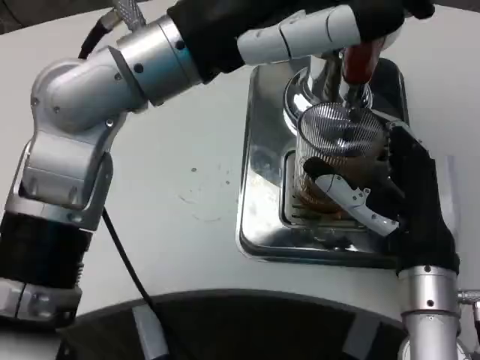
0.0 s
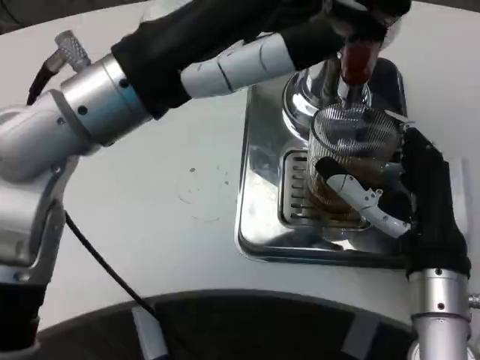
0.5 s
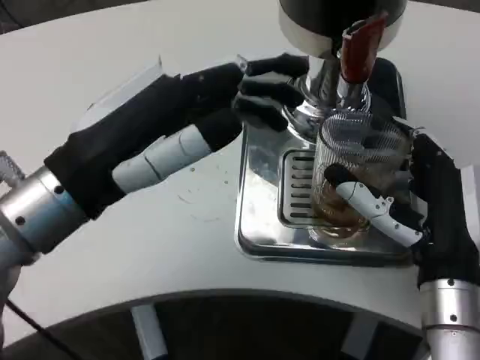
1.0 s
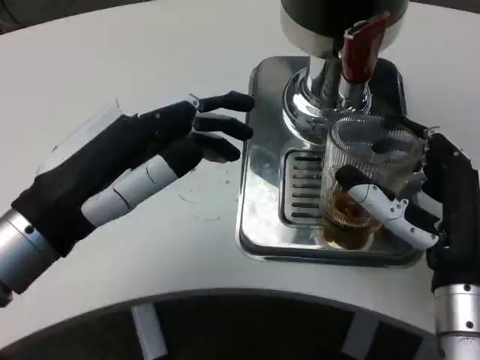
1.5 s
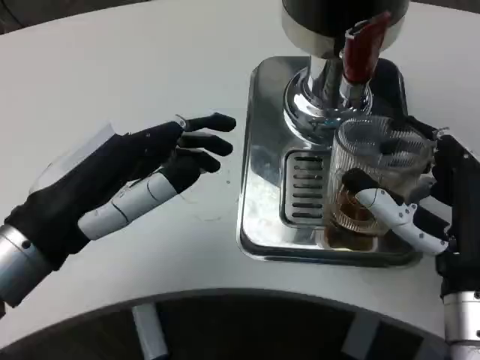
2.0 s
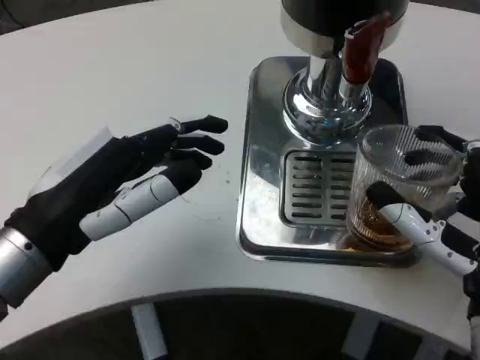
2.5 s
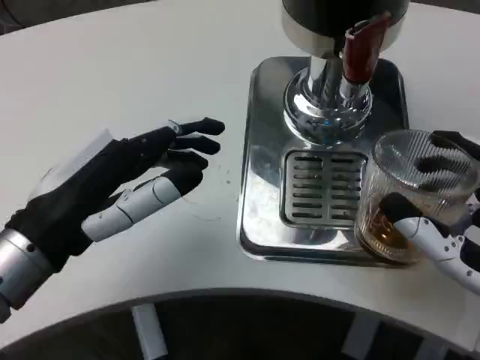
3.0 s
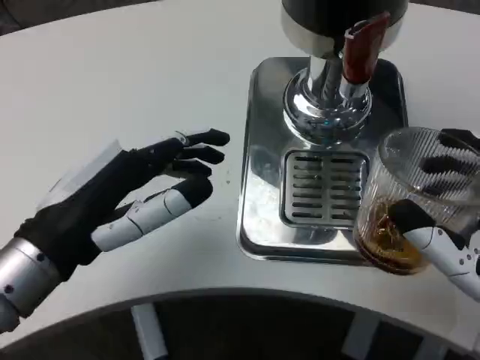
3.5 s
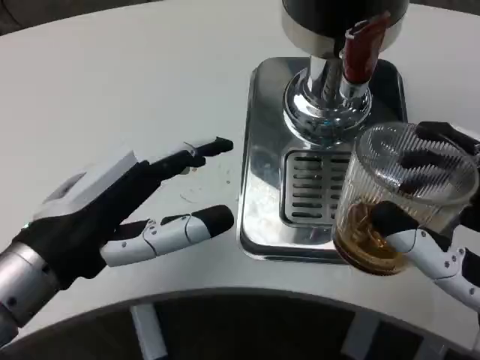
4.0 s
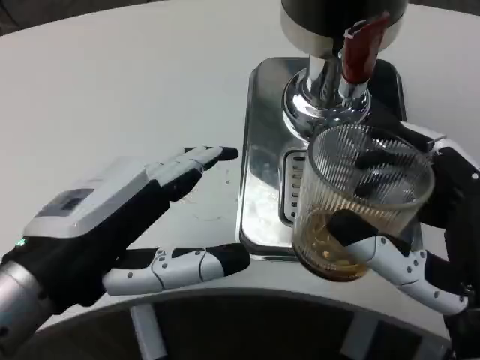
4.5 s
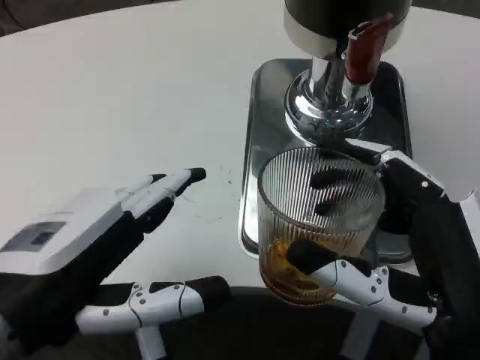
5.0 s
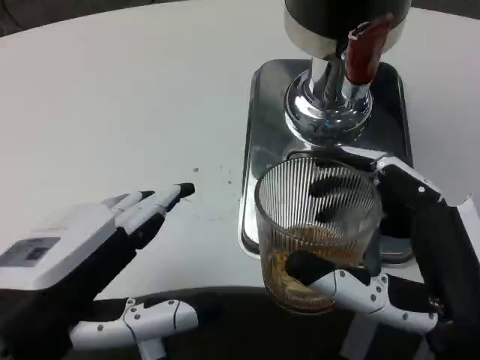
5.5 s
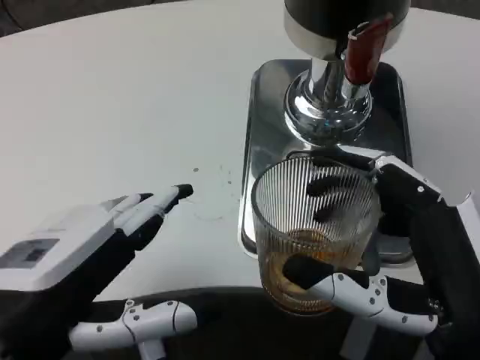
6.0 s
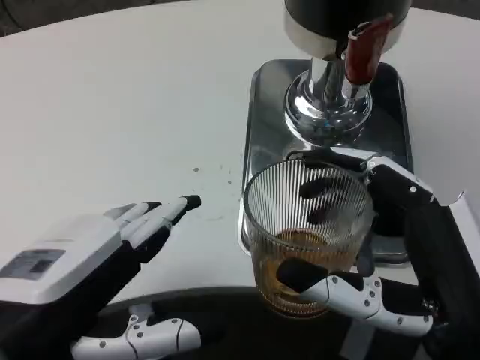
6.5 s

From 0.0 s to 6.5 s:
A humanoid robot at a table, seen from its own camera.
Task of the whole recording: Grasp the cup under the faucet to collect the drink, then remove the cup.
From 0.0 s to 2.0 s: The left hand is displaced downward, to the left and backward by about 20 cm.
From 2.0 s to 4.5 s: The right hand travels backward by some 5 cm, while the left hand shifts by some 5 cm.

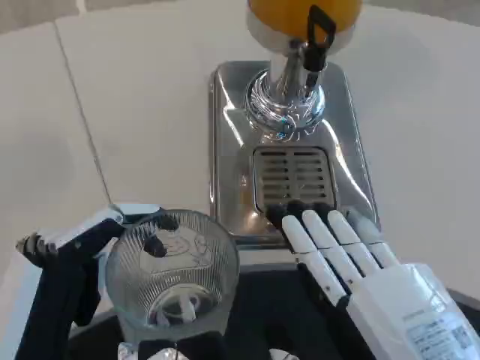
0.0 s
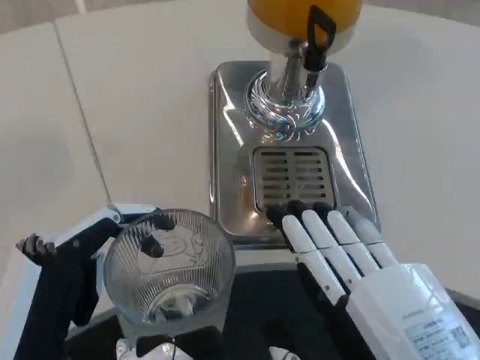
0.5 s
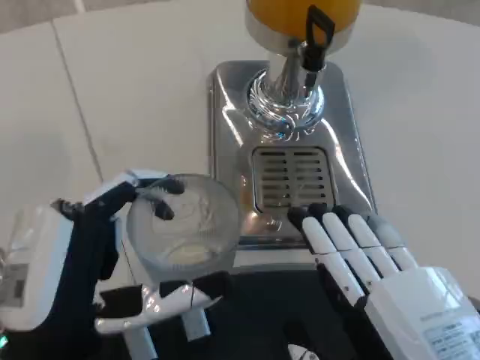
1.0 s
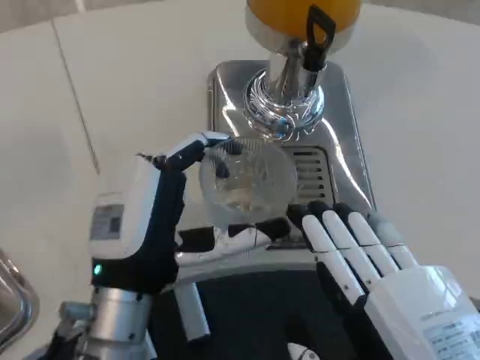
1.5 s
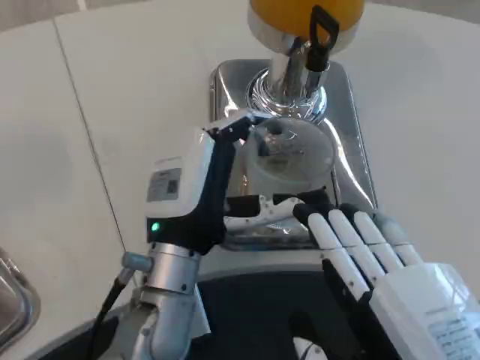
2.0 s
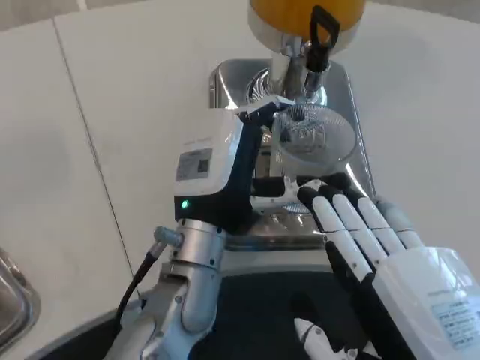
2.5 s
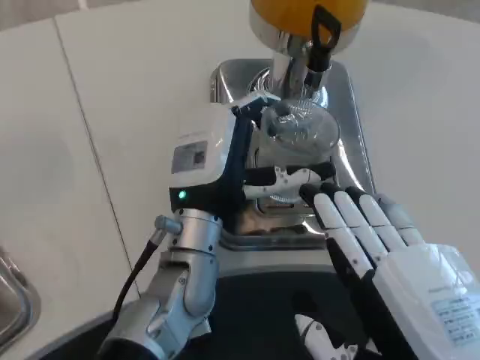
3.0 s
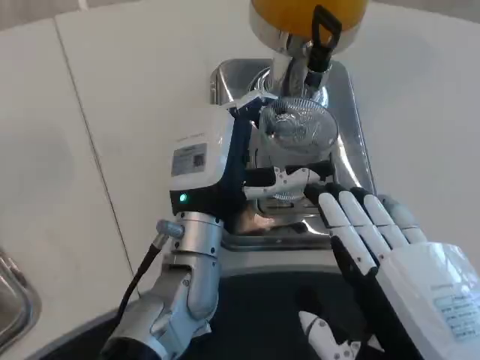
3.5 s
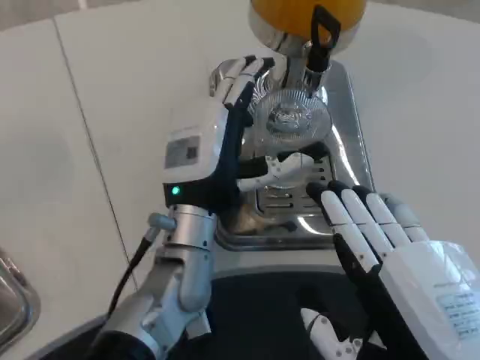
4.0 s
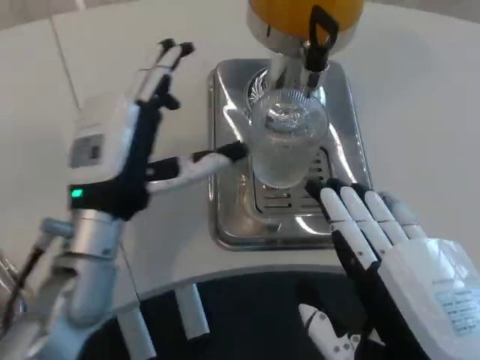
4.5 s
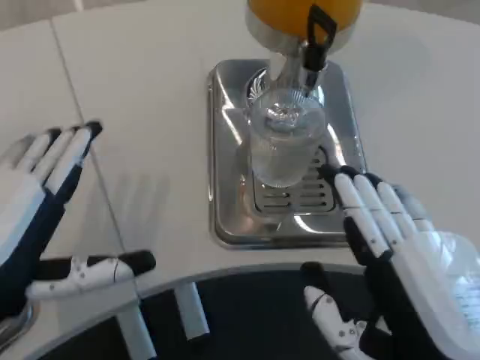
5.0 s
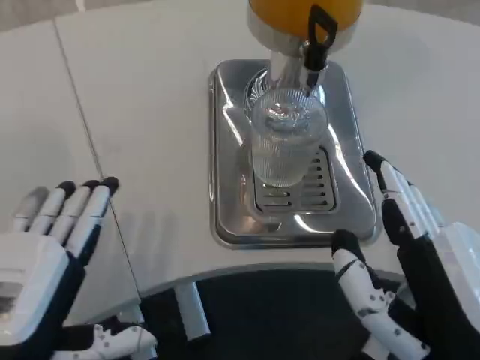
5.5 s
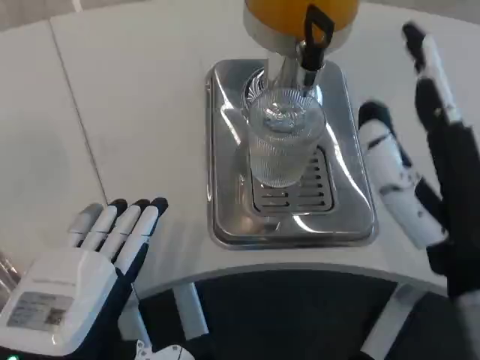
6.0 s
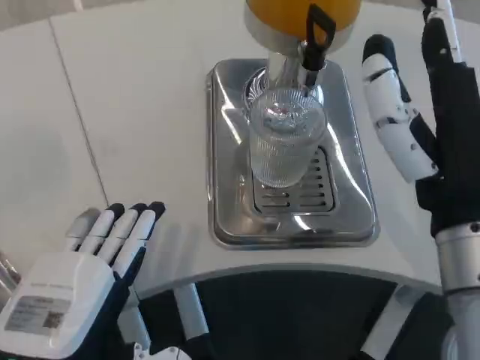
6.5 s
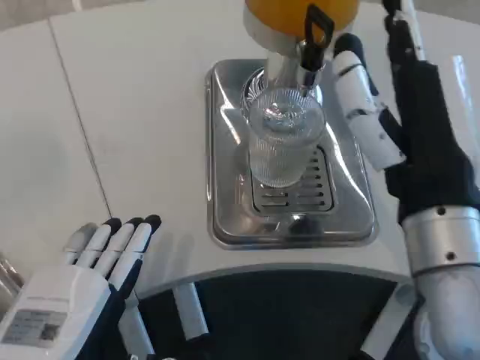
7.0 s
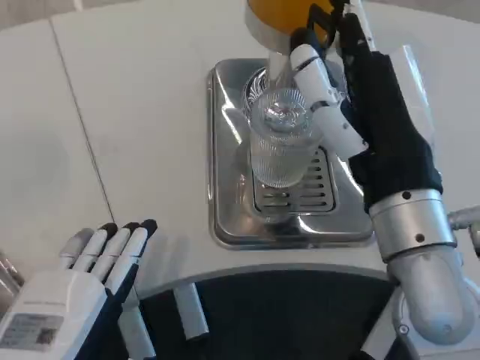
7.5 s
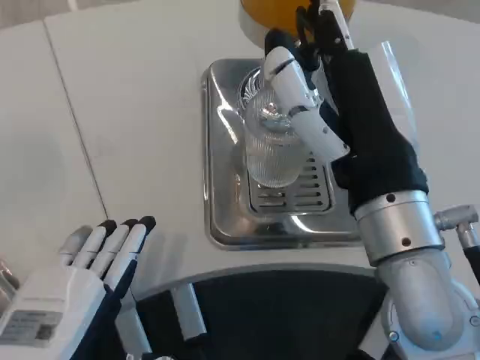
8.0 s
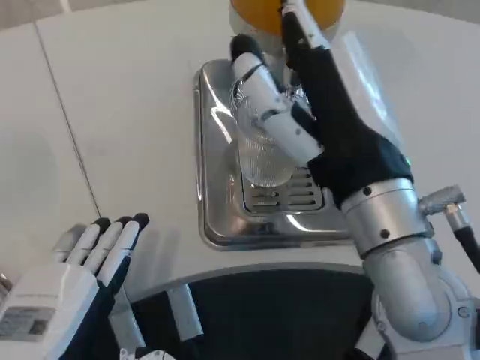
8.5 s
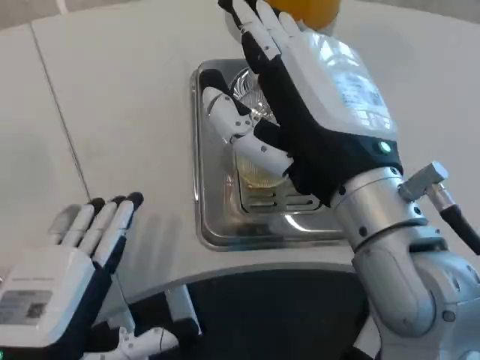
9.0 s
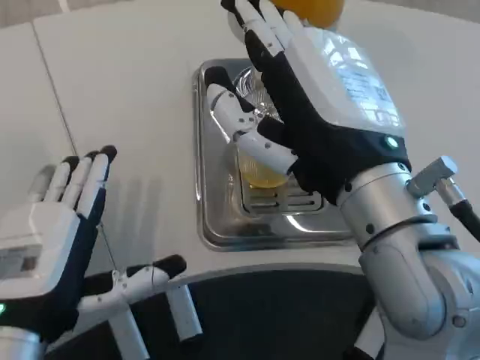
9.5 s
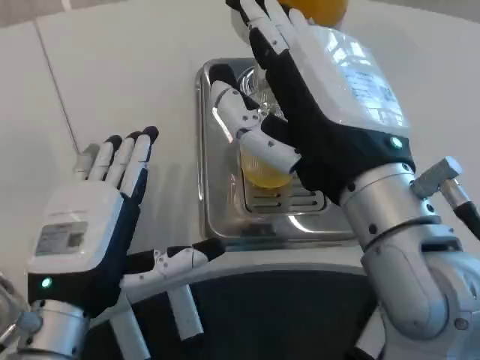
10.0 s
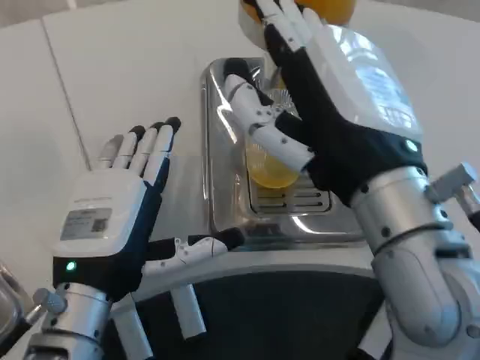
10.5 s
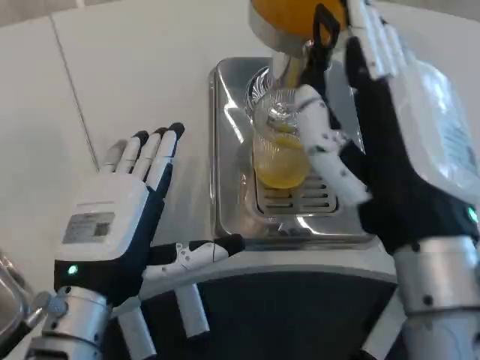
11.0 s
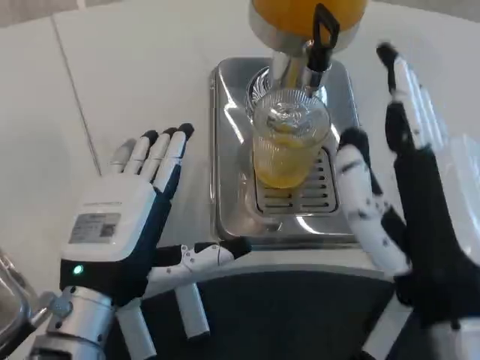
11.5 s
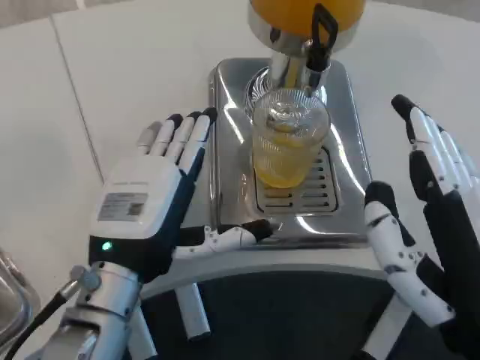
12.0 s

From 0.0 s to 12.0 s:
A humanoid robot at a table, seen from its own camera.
Task of the whole recording: Grasp the cup under the faucet to collect the drink, then remove the cup.
From 0.0 s to 2.0 s: The left hand moves forward and to the right, approximately 20 cm.
From 2.0 s to 4.0 s: The left hand shifts by roughly 5 cm.
From 4.0 s to 6.0 s: The right hand moves forward, some 5 cm, while the left hand is displaced backward and to the left by roughly 20 cm.
From 6.0 s to 8.0 s: The right hand travels forward by approximately 5 cm.
From 8.0 s to 10.0 s: The left hand moves forward, approximately 10 cm.
From 10.0 s to 12.0 s: The right hand shifts roughly 15 cm downward, backward and to the right; the left hand changes place by about 5 cm.

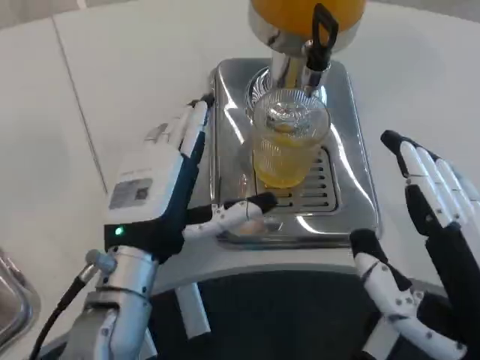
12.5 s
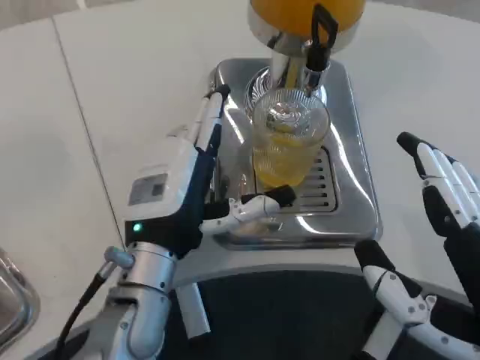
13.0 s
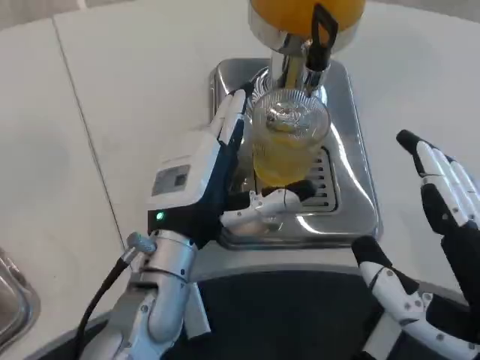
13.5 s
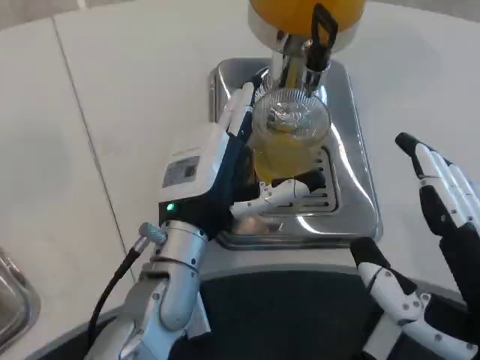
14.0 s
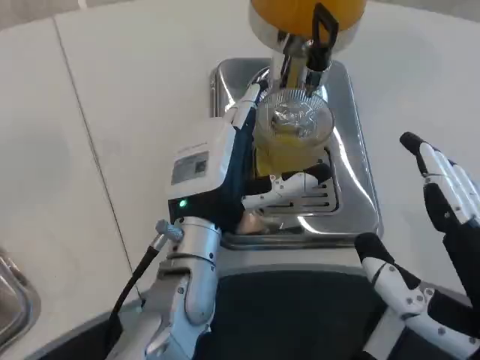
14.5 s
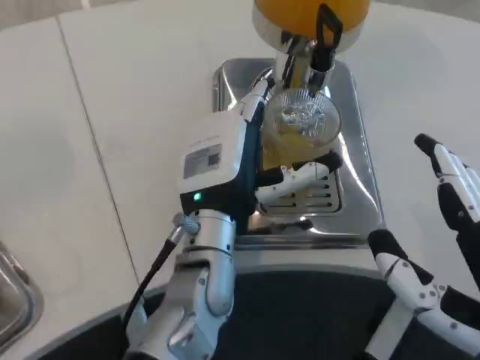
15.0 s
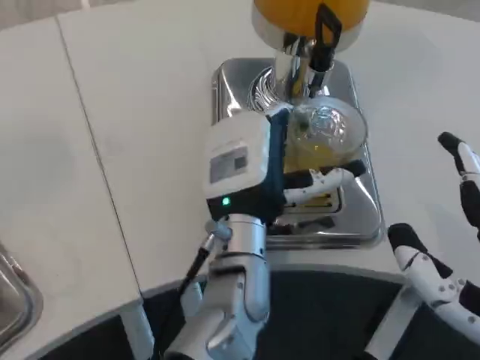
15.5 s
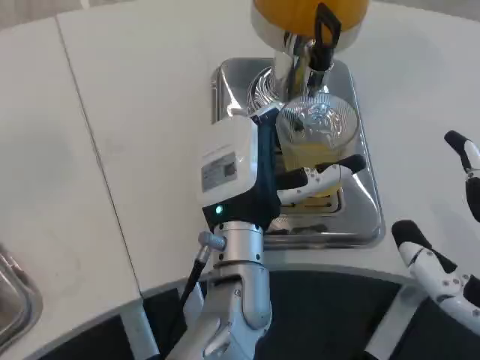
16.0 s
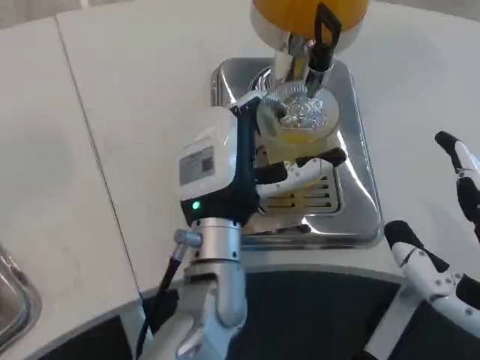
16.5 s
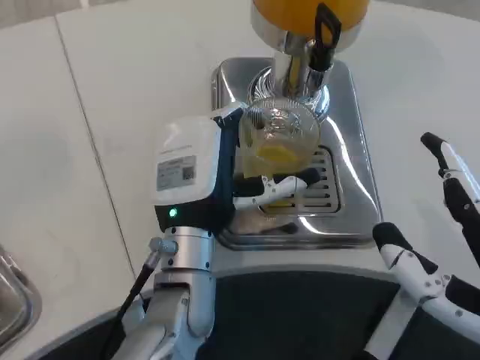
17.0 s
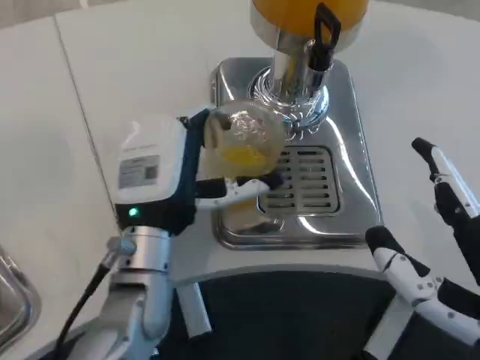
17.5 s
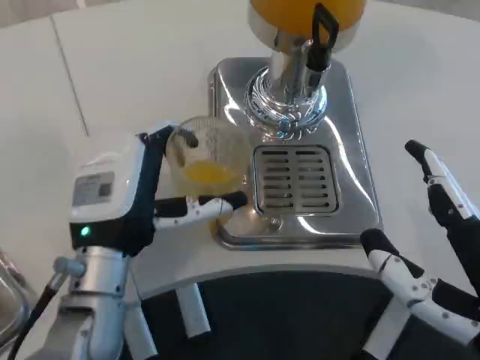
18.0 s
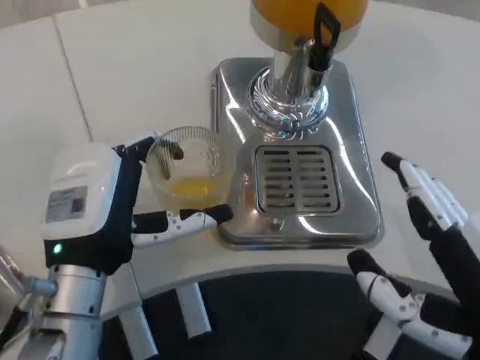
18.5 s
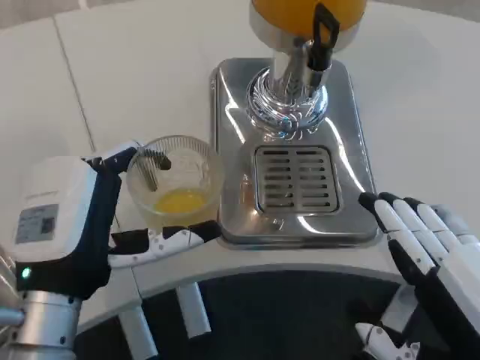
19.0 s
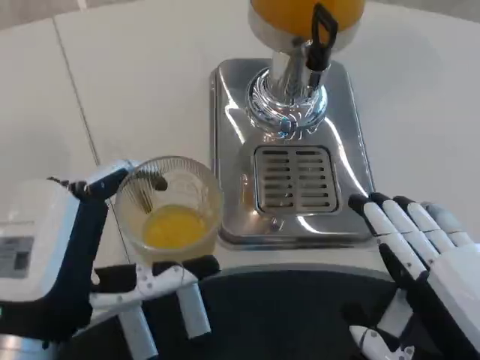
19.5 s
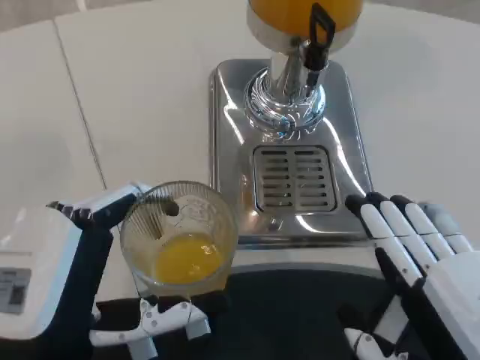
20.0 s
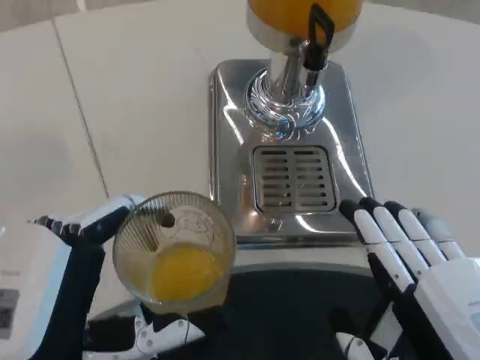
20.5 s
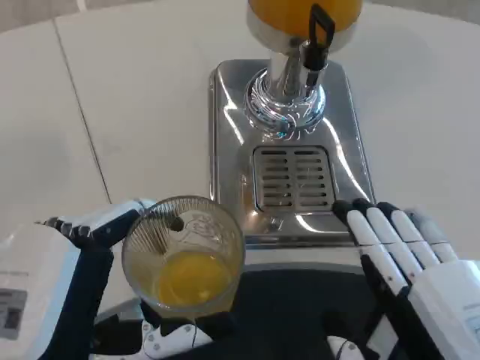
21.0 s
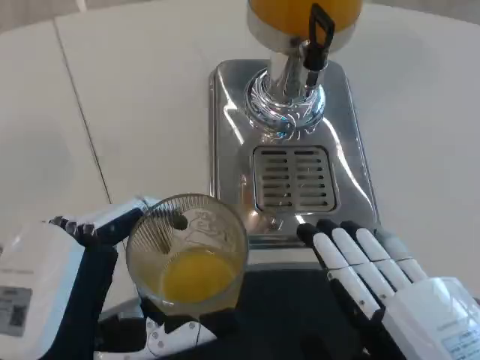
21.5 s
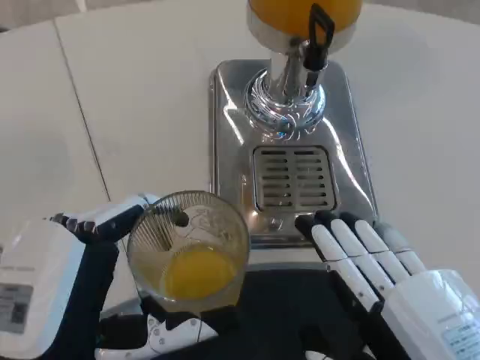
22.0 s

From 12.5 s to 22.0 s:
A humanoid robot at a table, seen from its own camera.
Task of the whole recording: Grasp the cup under the faucet to collect the drink, then remove the cup.
From 12.5 s to 14.5 s: The left hand travels to the right by approximately 5 cm.
From 16.5 s to 18.0 s: The left hand moves to the left, roughly 10 cm.
From 18.0 s to 20.0 s: The left hand shifts roughly 15 cm backward.
